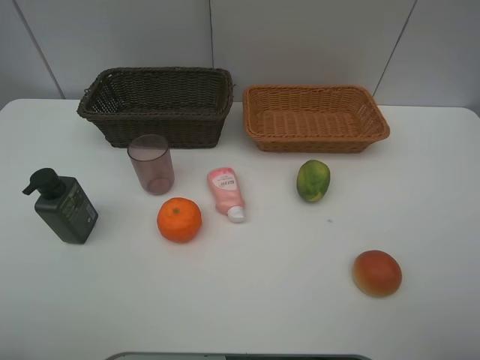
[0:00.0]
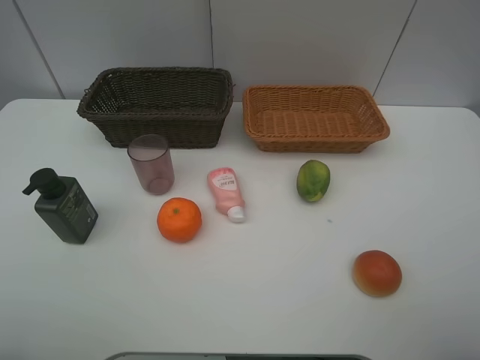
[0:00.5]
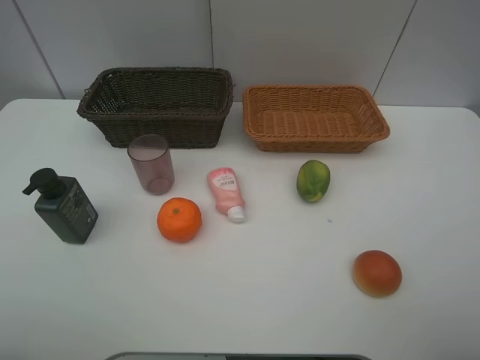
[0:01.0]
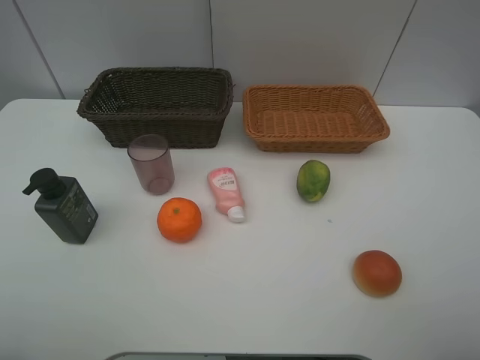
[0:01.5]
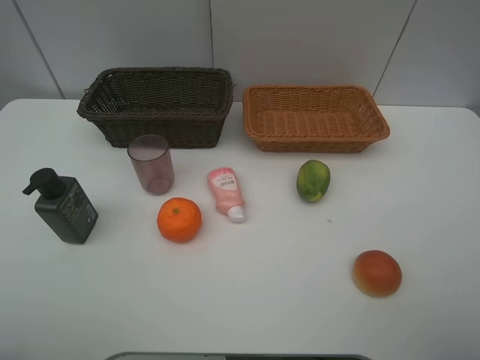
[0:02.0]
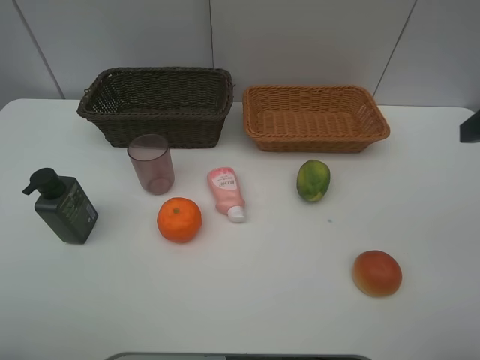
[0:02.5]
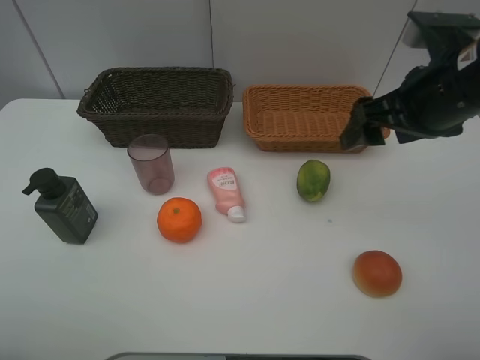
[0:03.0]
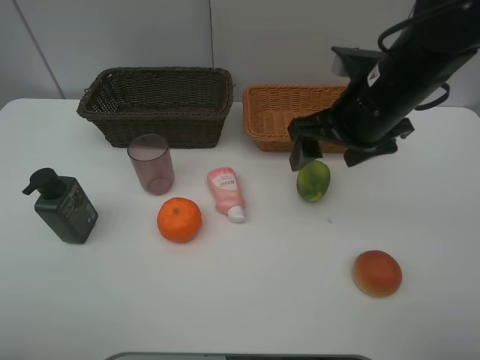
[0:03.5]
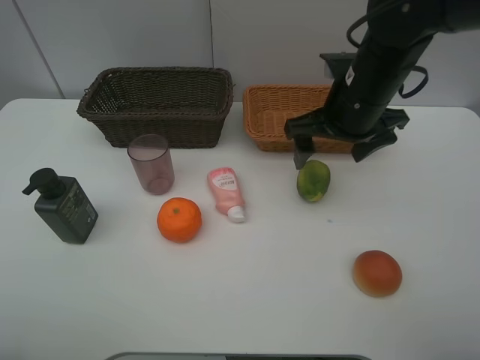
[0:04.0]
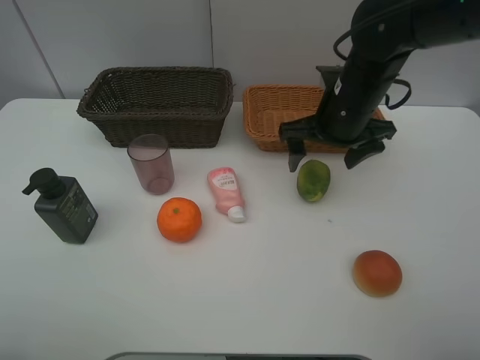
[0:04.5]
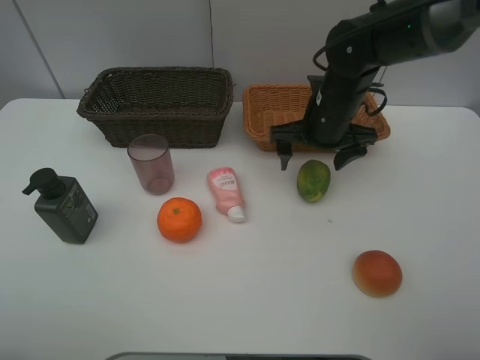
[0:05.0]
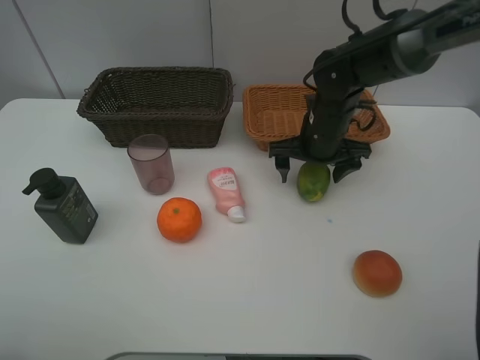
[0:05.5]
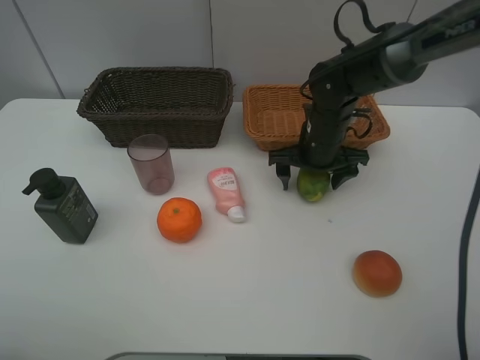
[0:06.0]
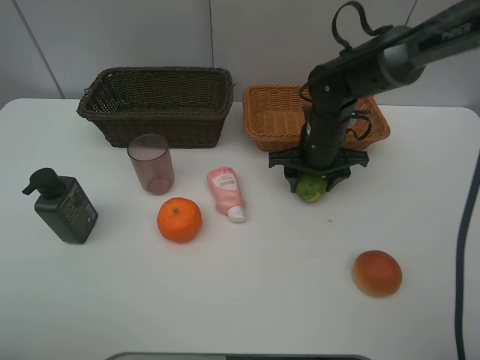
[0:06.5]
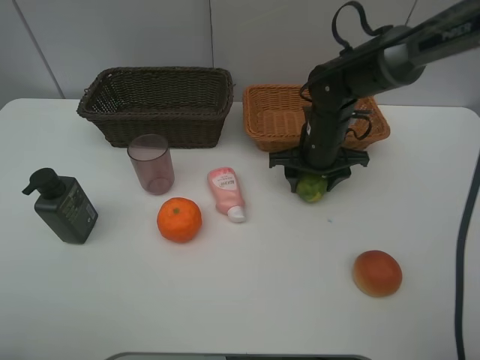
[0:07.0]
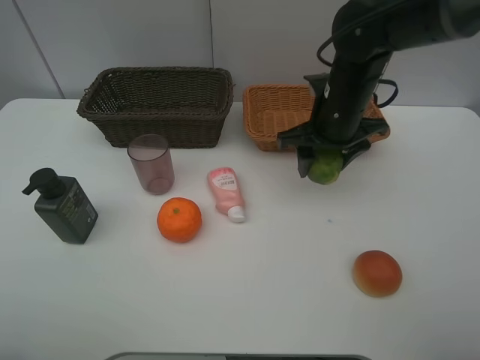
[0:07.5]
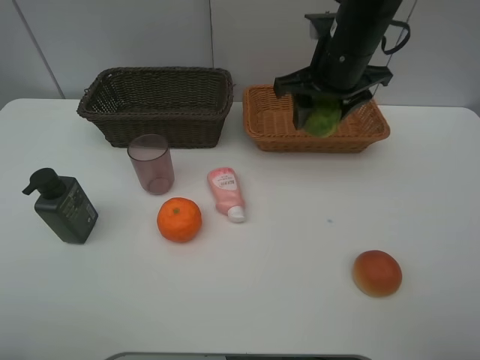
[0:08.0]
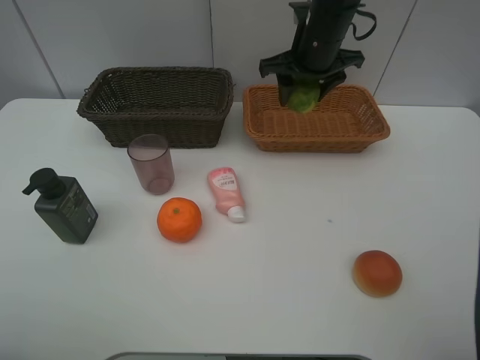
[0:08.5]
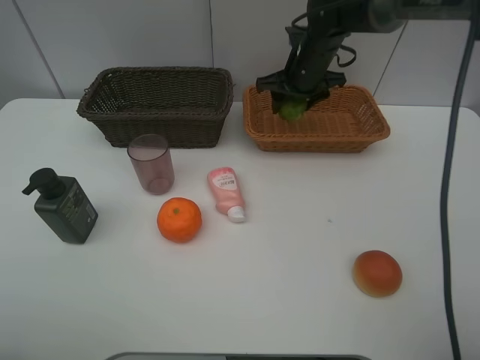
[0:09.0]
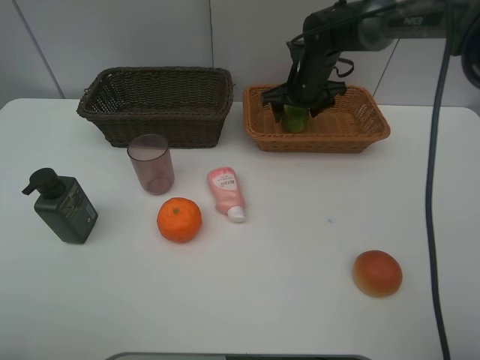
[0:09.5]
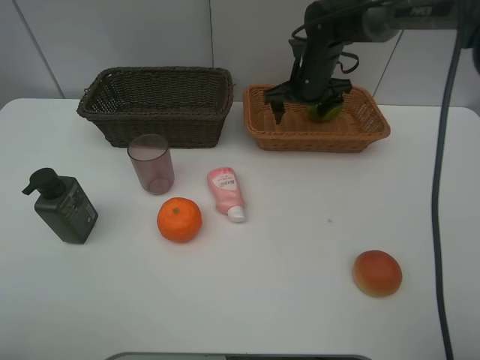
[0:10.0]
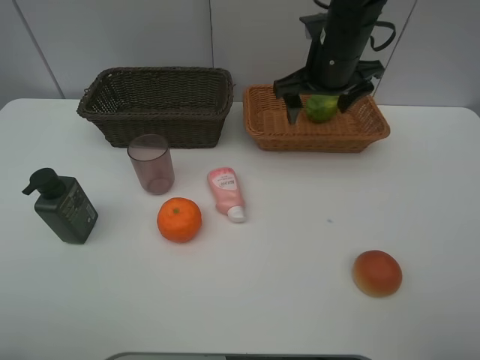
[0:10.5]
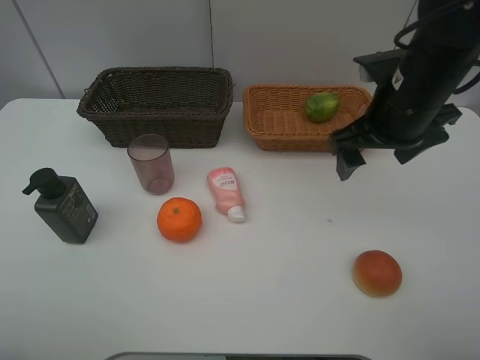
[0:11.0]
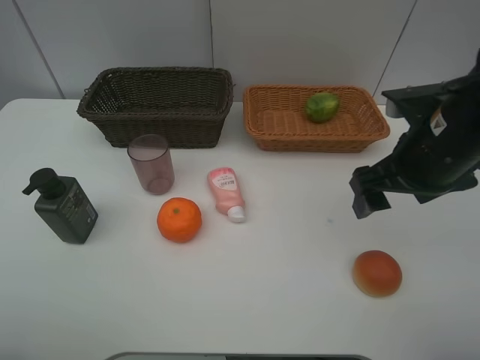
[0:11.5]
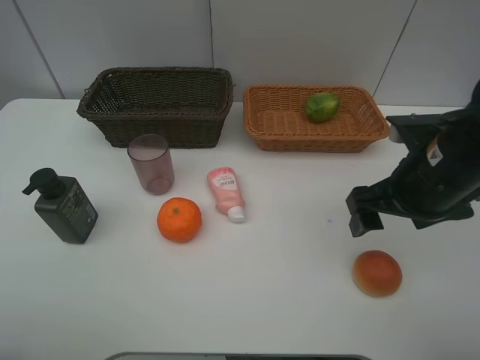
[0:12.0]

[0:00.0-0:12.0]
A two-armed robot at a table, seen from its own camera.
Task of the whole recording: place multiple objects separately in different baskets.
2.0 to 4.0 s: The right gripper moves forward and to the left, some 30 cm.
4.0 to 6.0 s: The right gripper shifts roughly 10 cm downward and forward.
6.0 to 8.0 s: The right gripper heads upward, covering roughly 15 cm, and closes.
8.0 to 10.0 s: The right gripper is displaced forward and downward by about 15 cm, and opens its fingers.
10.0 to 12.0 s: The right gripper shifts about 25 cm backward.

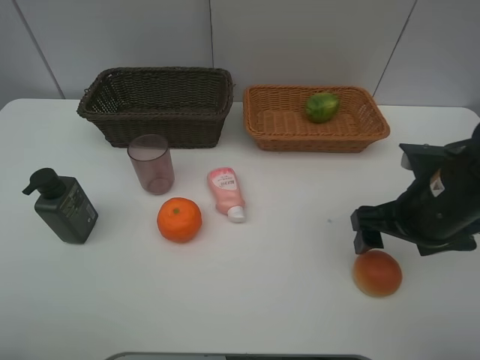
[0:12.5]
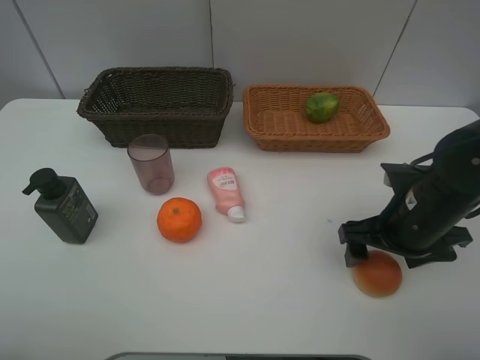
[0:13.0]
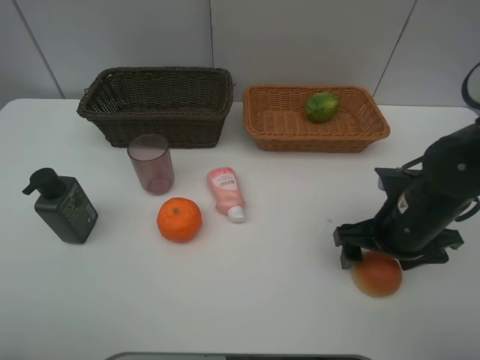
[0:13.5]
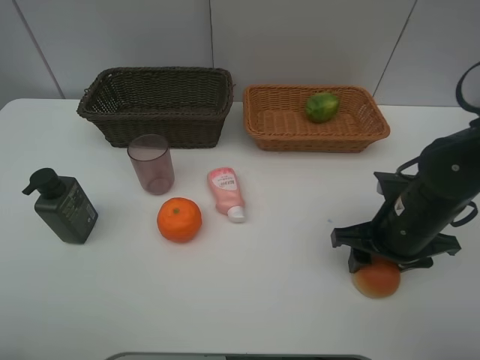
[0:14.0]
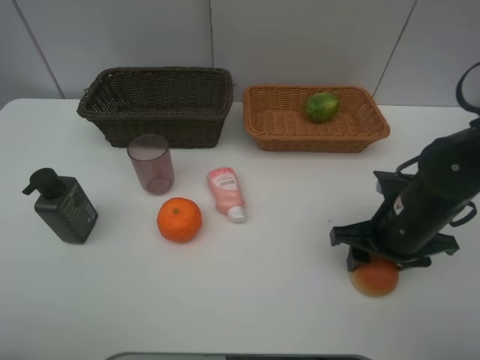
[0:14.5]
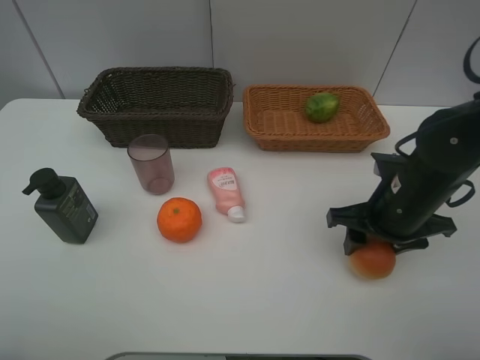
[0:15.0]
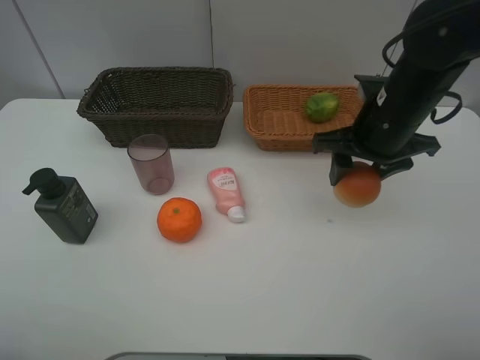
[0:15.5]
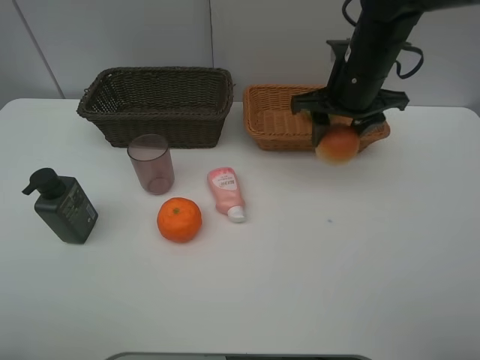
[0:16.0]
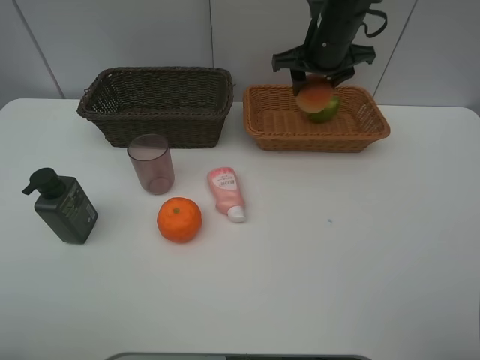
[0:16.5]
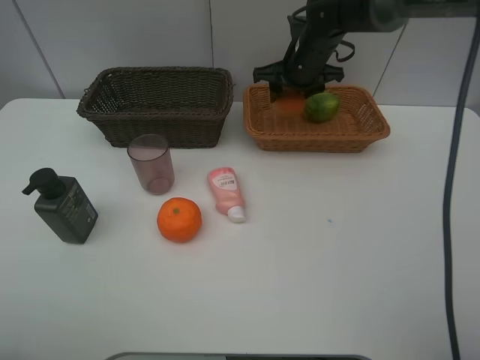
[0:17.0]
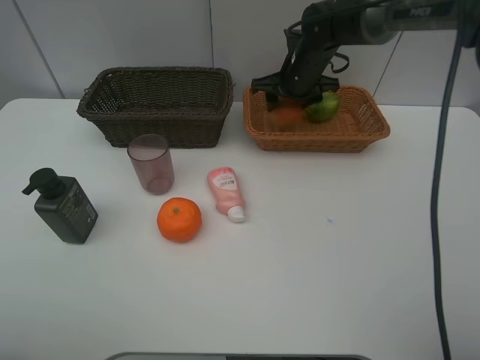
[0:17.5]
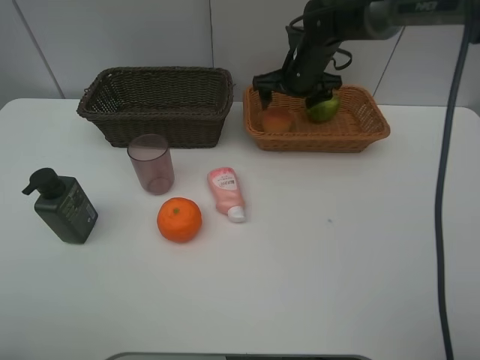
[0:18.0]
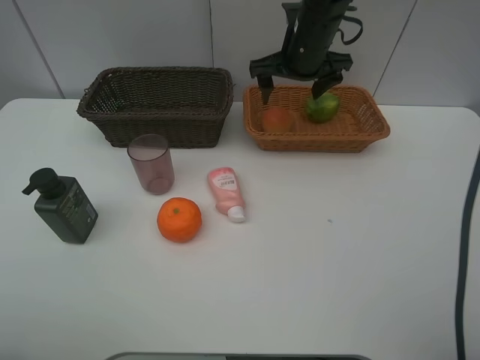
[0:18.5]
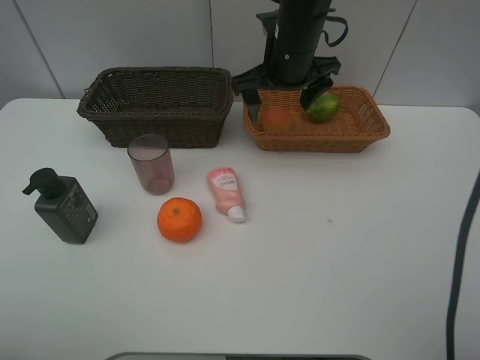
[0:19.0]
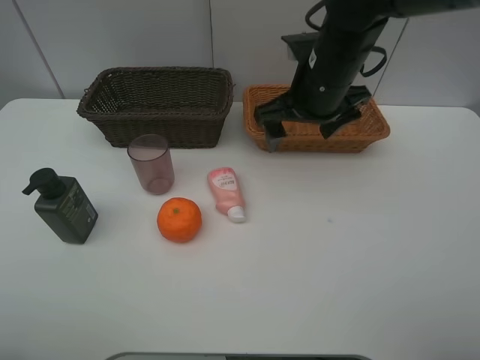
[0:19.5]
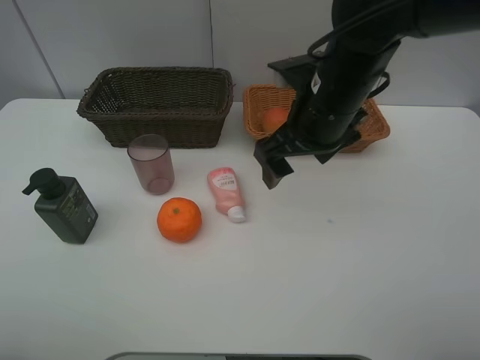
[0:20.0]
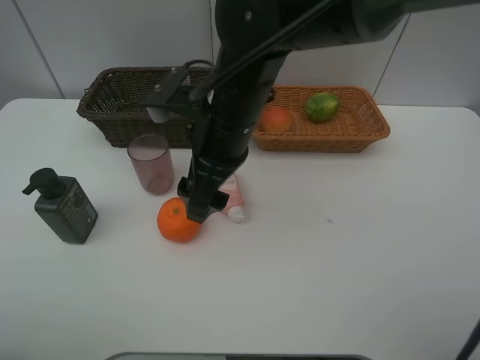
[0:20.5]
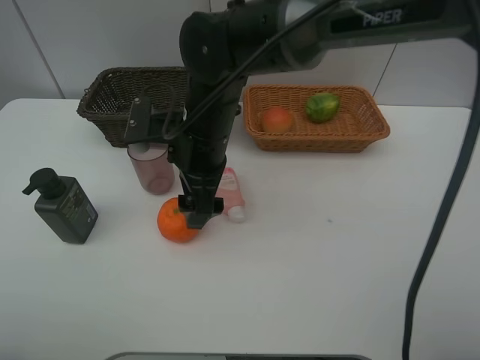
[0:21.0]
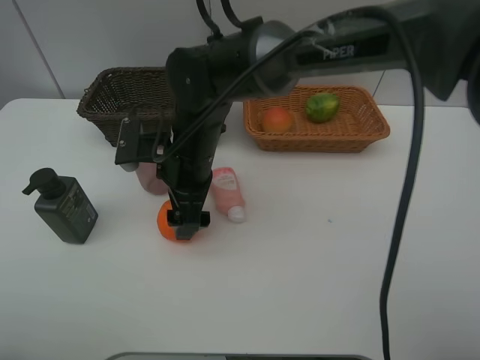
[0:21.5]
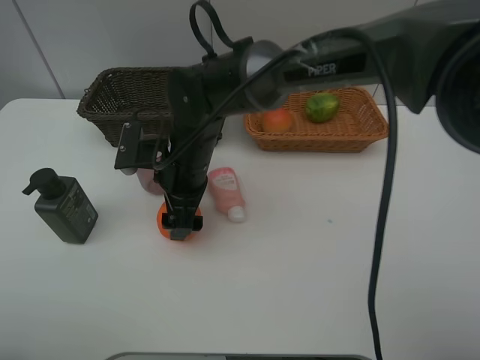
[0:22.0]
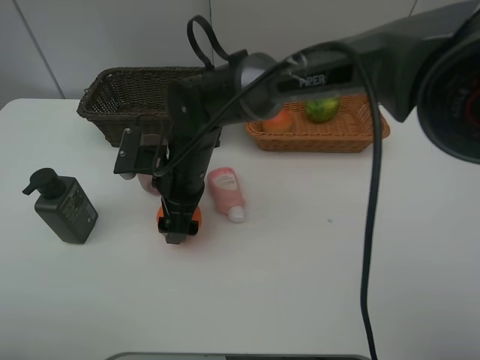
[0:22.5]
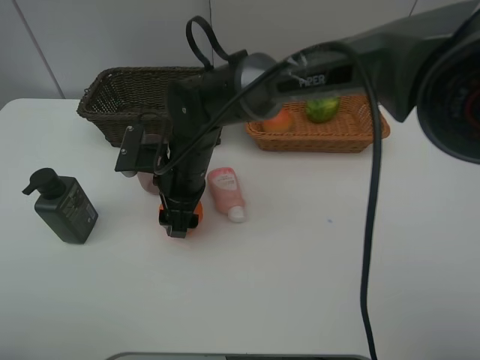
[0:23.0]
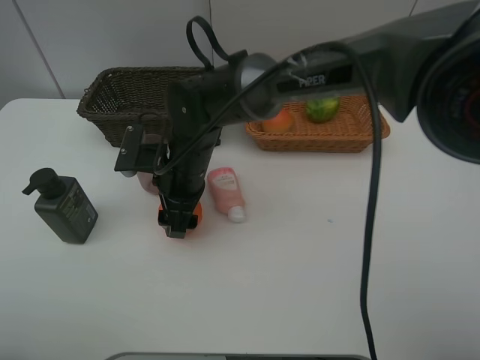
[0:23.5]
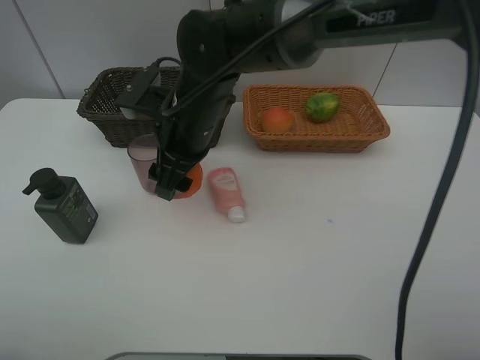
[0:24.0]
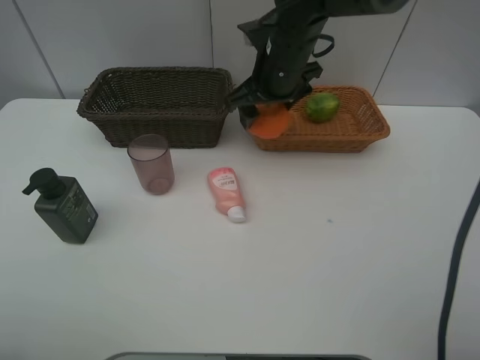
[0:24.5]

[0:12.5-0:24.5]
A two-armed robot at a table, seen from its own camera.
Task of the whole recording: place multiple objects separately in different baskets.
12.5 to 14.5 s: The right gripper travels downward by some 5 cm, and closes its fingers.
14.5 to 16.5 s: The right gripper is displaced forward and upward by approximately 25 cm.
16.5 to 18.5 s: The right gripper opens up.
18.5 to 20.5 s: The right gripper moves backward and to the left, about 20 cm.
20.5 to 22.5 s: The right gripper moves downward and to the left, some 10 cm.
22.5 to 24.5 s: The right gripper heads to the right, upward and forward, covering roughly 20 cm, and closes.

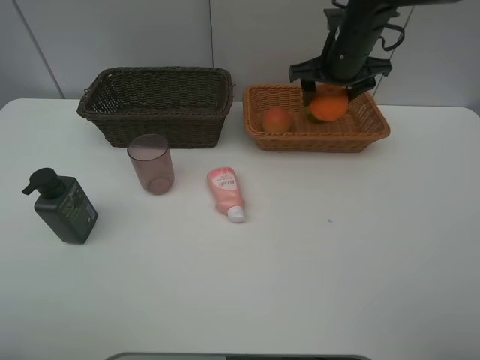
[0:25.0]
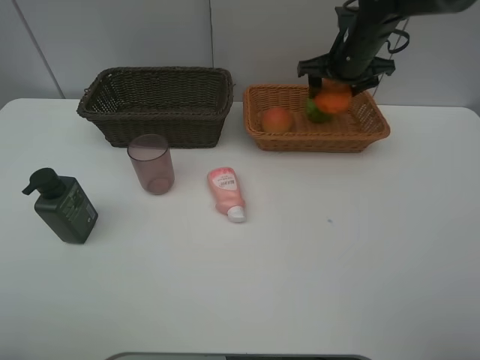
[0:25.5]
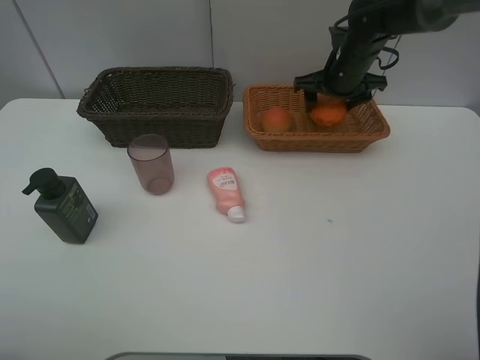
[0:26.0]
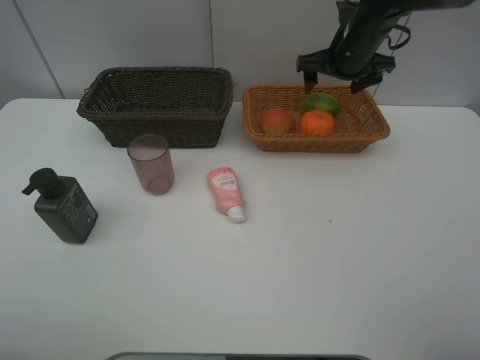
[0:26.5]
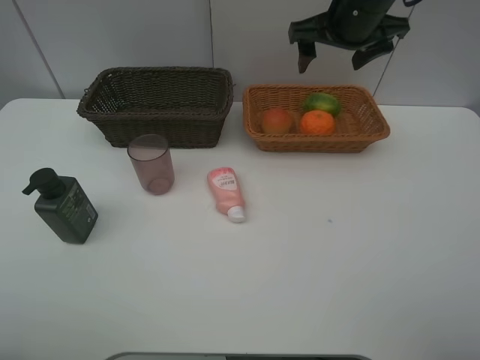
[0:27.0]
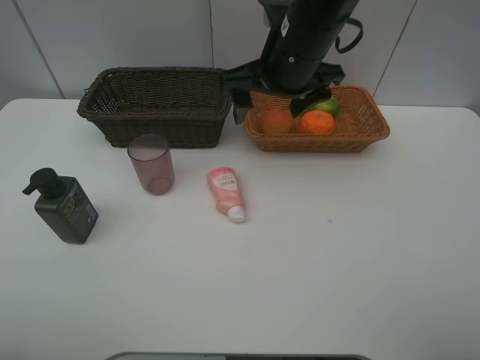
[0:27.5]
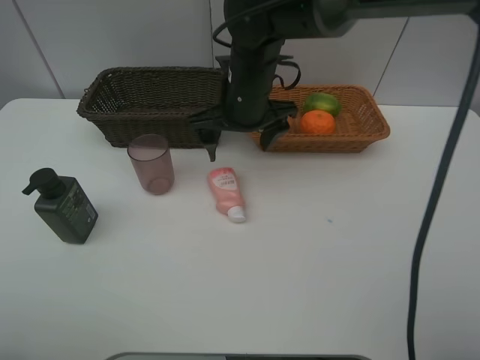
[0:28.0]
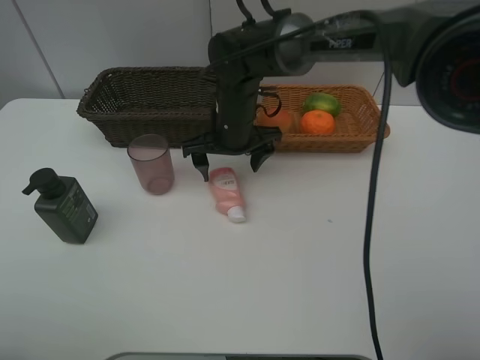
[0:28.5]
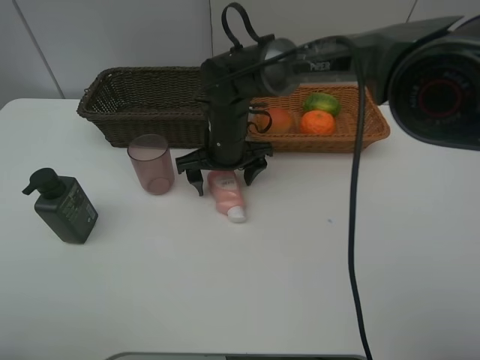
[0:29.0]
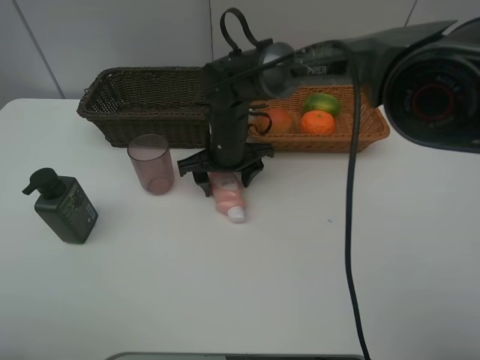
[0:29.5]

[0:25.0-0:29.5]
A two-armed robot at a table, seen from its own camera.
Task of the whole recording: place multiple objects separately in different baskets.
25.0 to 27.0 s: The right gripper goes about 5 cm upward, and opens its fingers.
27.0 to 29.5 s: The right gripper heads downward and to the left, covering about 25 cm, and closes its fingers.
